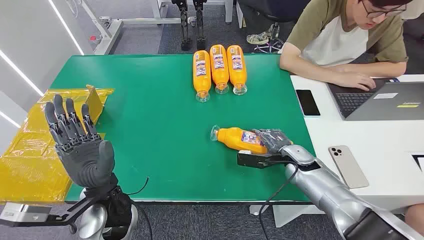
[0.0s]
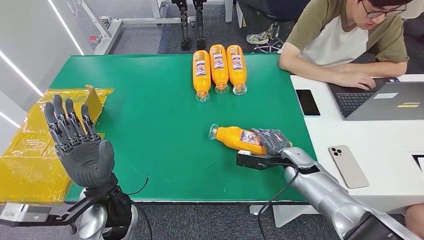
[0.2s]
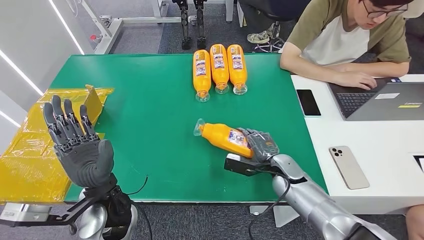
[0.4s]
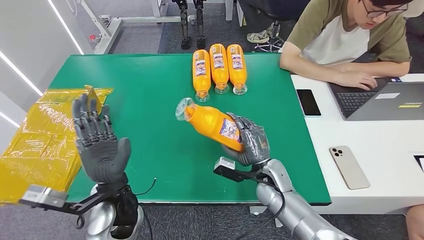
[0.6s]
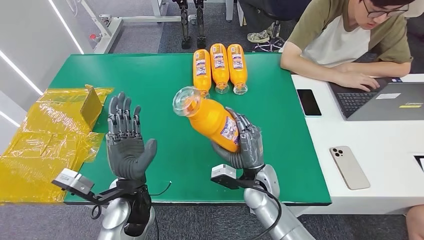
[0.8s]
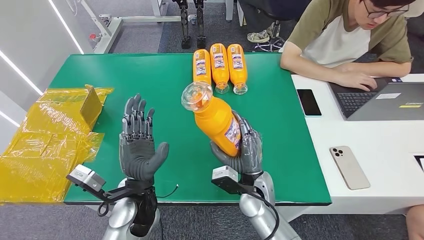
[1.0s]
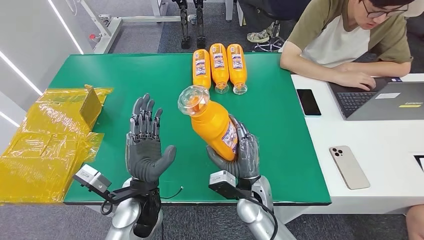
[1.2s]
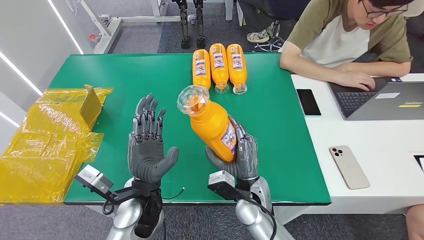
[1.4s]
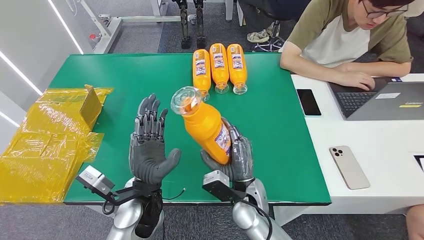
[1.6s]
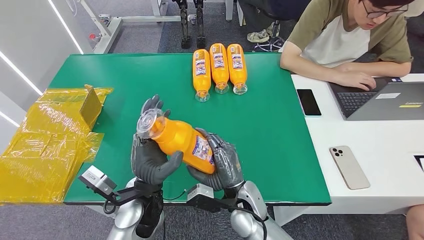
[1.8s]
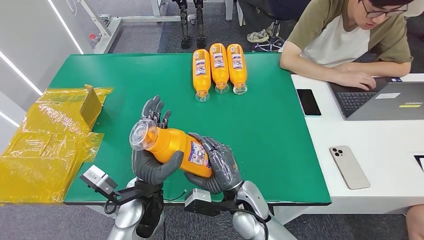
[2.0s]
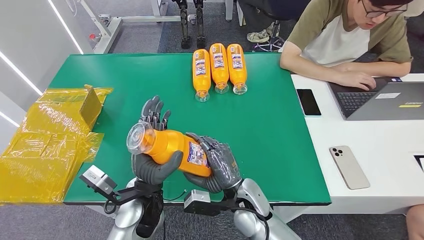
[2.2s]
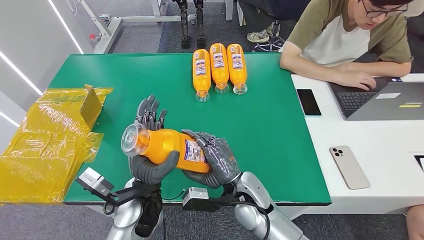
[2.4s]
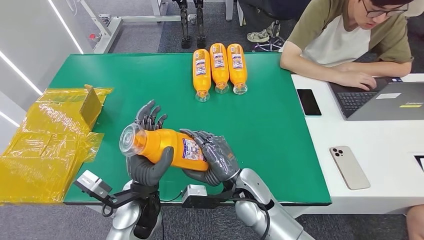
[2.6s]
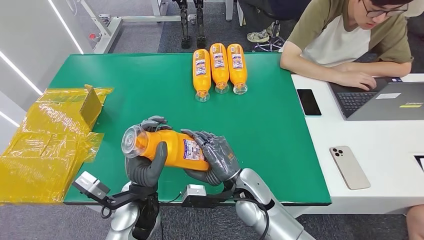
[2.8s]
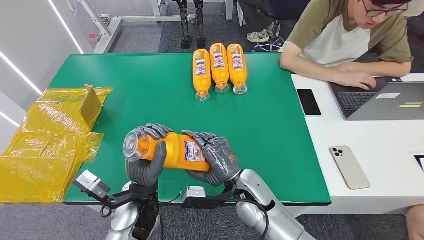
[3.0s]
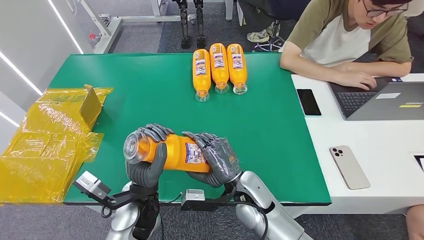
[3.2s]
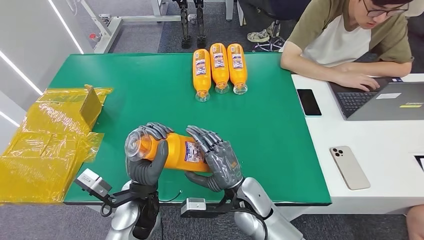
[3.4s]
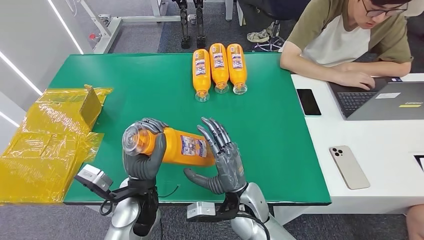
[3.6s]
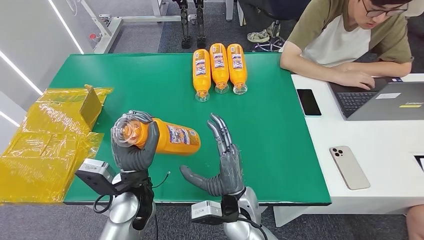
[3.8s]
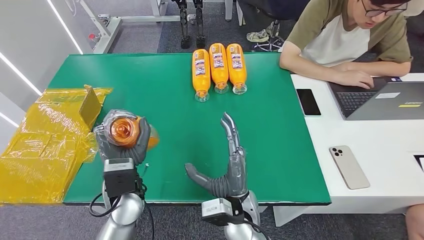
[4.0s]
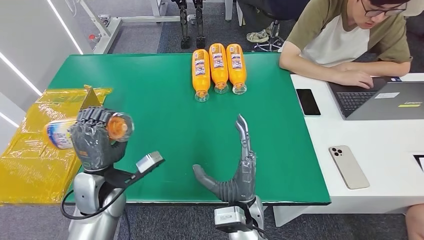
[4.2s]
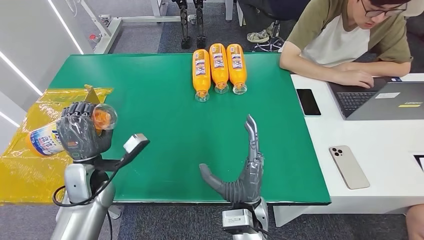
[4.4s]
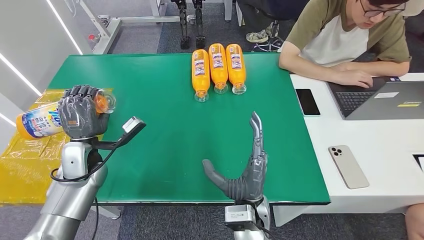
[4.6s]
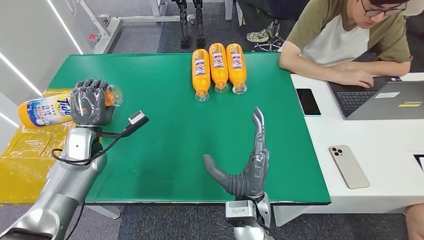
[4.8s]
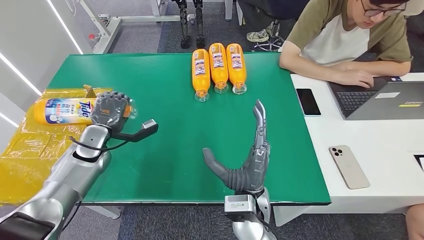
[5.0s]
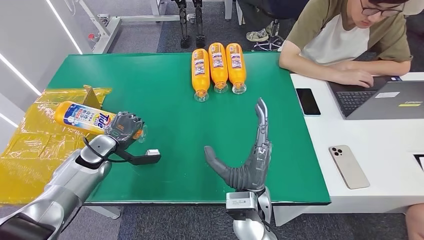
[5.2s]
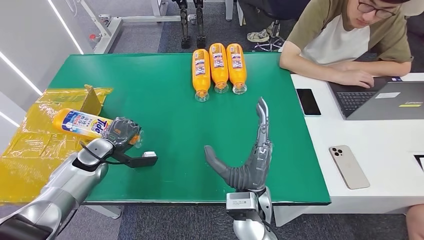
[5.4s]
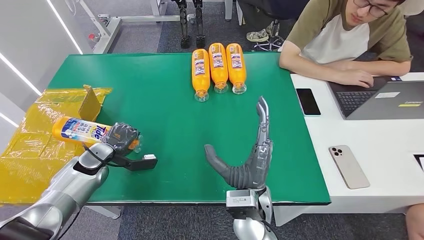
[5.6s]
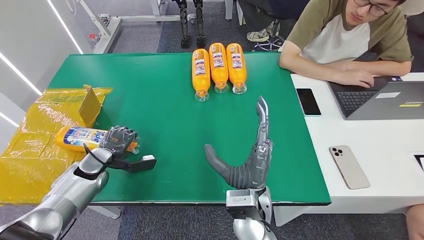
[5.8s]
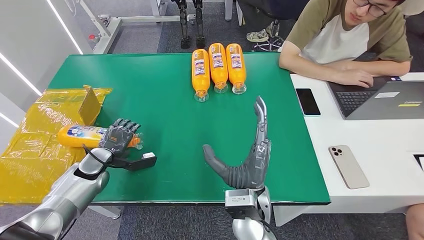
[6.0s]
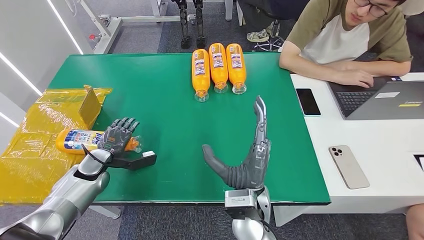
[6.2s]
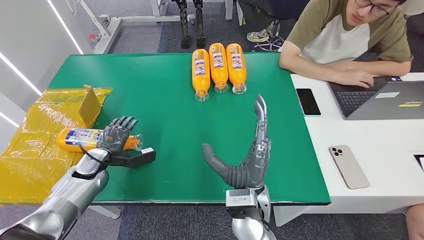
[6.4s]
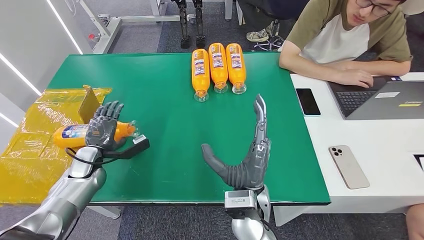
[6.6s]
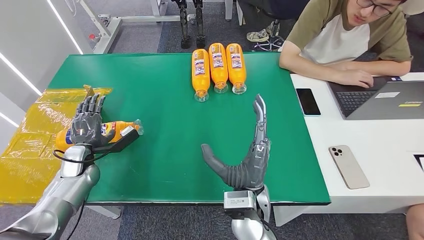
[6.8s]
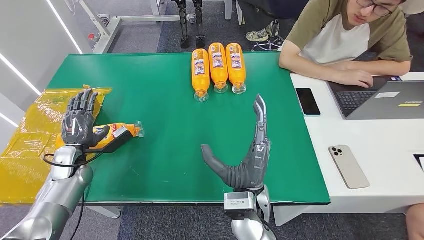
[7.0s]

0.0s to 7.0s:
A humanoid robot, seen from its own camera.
Step, 0.0s to 2.0s: Pick up the bottle from the table.
Step, 2.4s to 7.0s: Turn the bottle to the front side.
2.8s to 4.2s: The left hand shifts some 10 cm to the left, while the right hand is displaced backward by roughly 5 cm.
4.2s to 5.6s: The left hand travels to the left and forward by some 20 cm.
